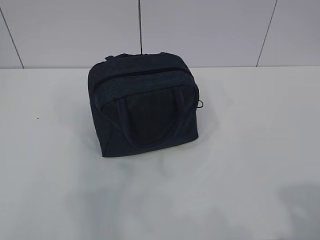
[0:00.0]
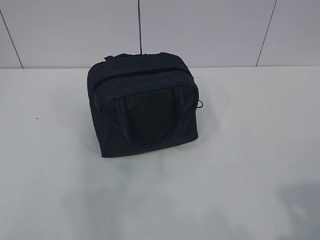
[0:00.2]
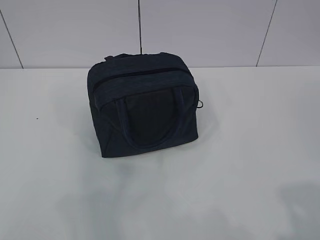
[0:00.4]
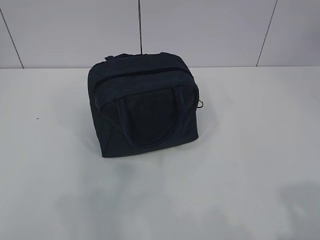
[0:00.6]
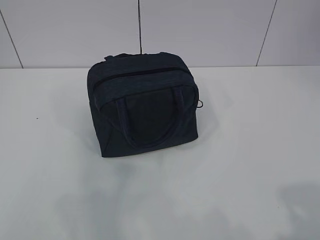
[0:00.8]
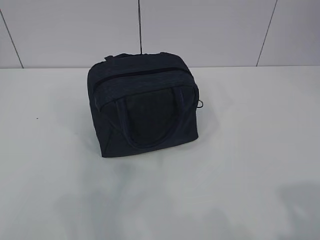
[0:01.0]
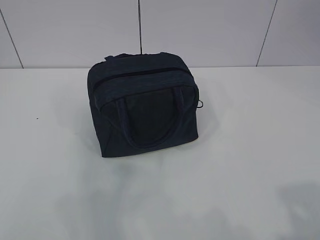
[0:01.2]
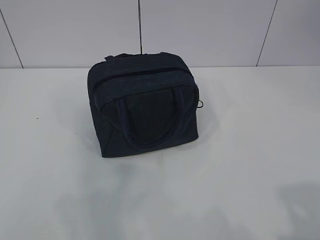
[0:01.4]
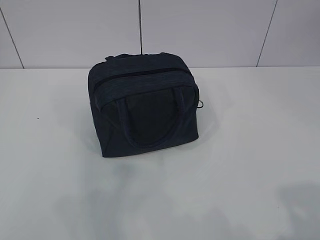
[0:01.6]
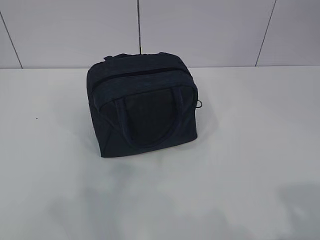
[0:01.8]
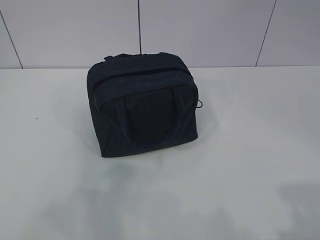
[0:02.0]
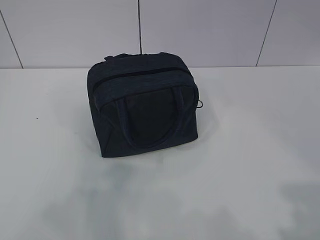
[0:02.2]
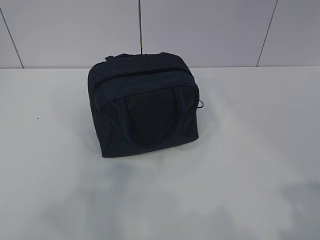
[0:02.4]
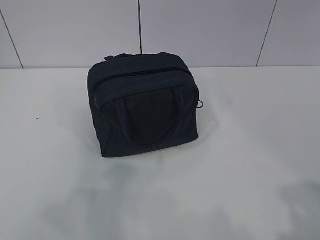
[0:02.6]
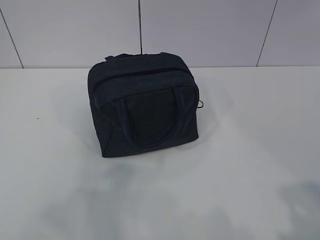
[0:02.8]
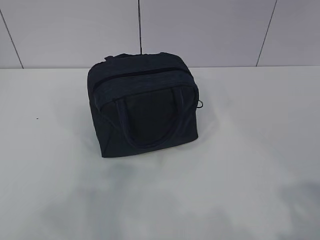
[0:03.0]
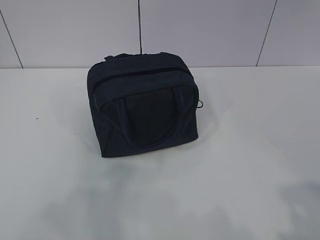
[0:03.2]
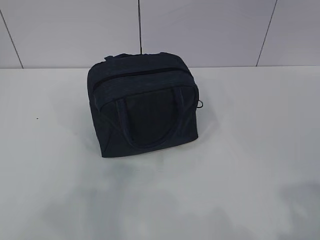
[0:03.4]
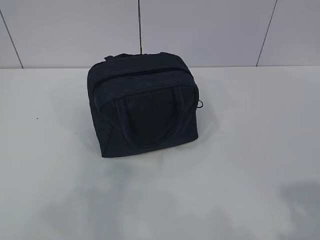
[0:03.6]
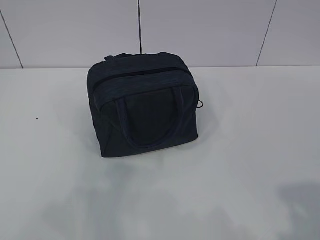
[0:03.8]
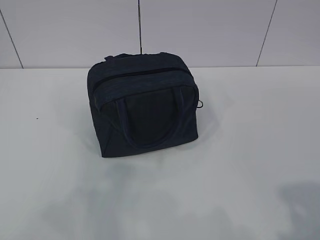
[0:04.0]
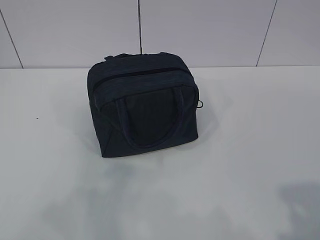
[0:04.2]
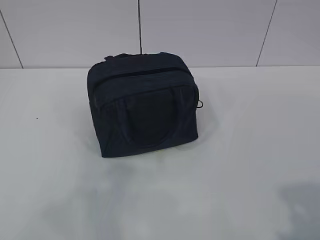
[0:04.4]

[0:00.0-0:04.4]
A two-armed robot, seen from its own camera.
0:03.0 to 0:04.4: Both grippers stay about where they are.

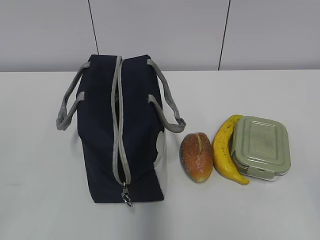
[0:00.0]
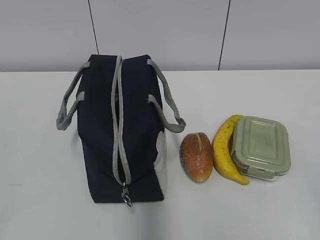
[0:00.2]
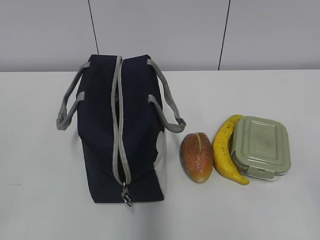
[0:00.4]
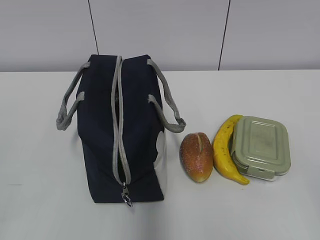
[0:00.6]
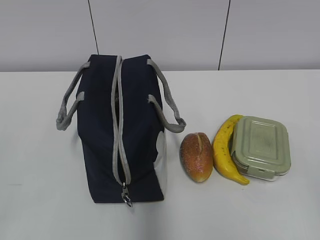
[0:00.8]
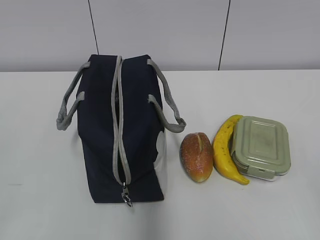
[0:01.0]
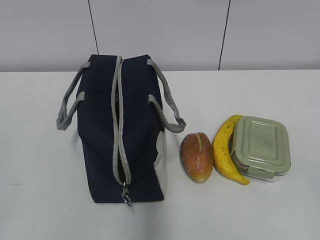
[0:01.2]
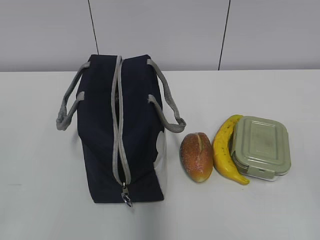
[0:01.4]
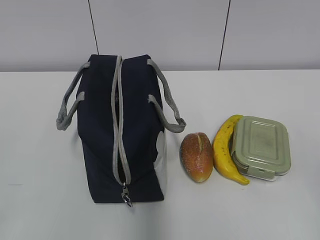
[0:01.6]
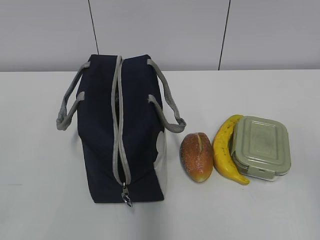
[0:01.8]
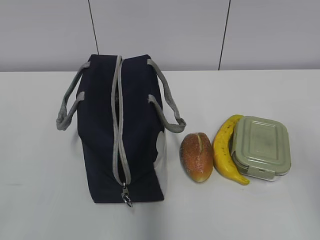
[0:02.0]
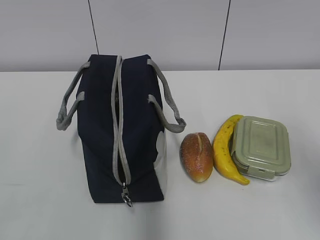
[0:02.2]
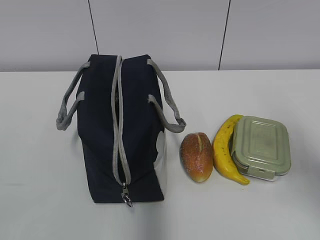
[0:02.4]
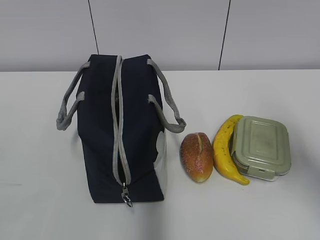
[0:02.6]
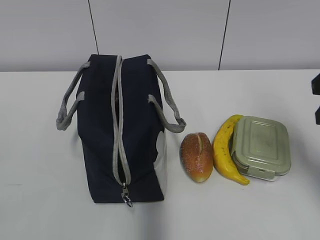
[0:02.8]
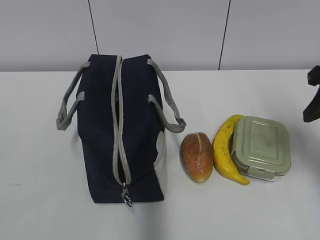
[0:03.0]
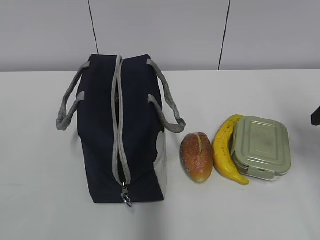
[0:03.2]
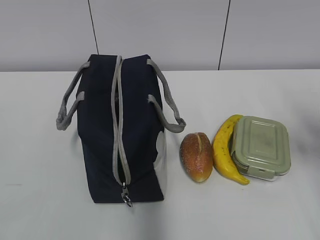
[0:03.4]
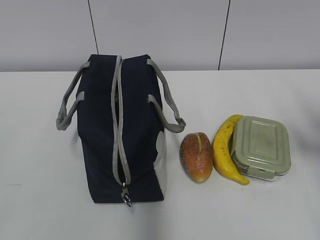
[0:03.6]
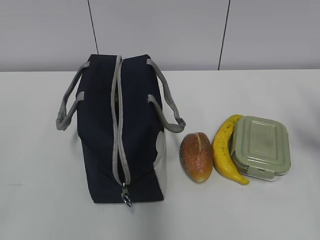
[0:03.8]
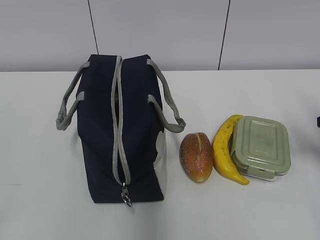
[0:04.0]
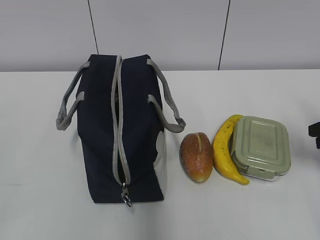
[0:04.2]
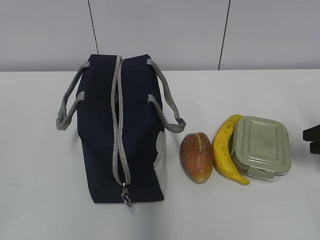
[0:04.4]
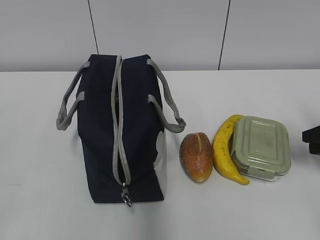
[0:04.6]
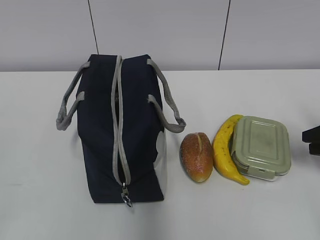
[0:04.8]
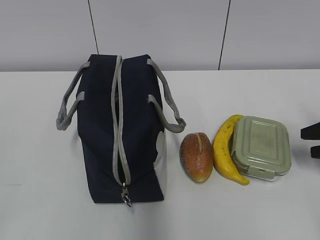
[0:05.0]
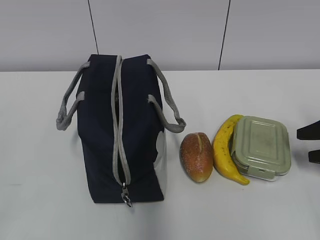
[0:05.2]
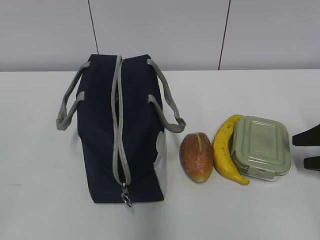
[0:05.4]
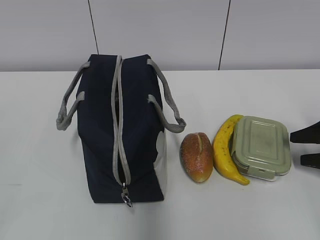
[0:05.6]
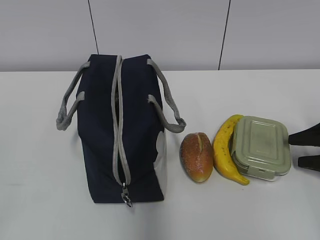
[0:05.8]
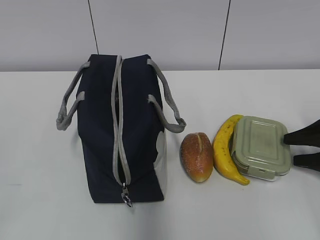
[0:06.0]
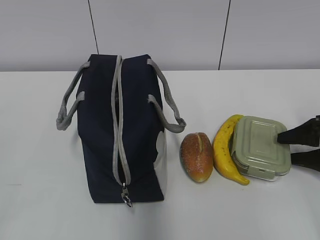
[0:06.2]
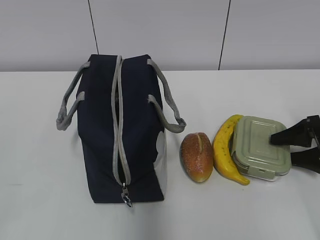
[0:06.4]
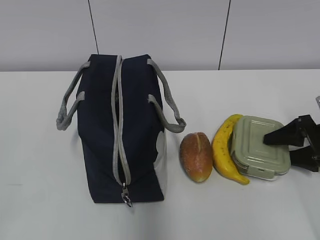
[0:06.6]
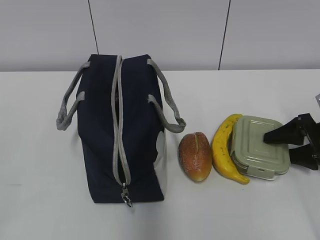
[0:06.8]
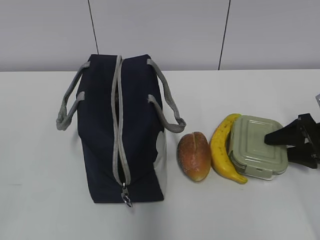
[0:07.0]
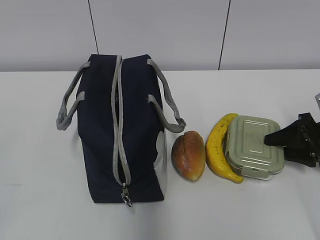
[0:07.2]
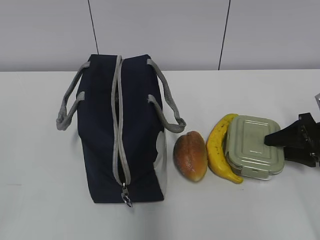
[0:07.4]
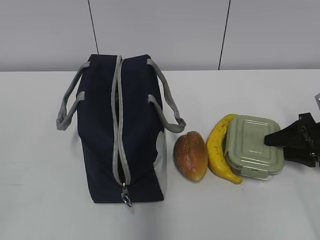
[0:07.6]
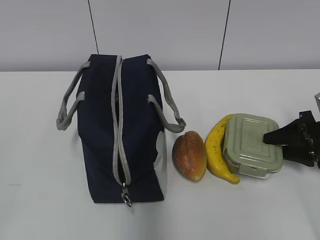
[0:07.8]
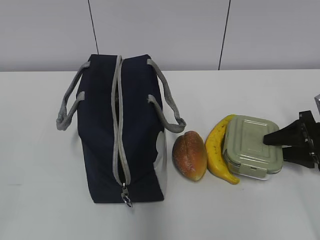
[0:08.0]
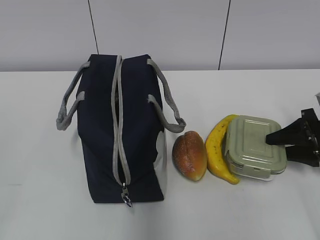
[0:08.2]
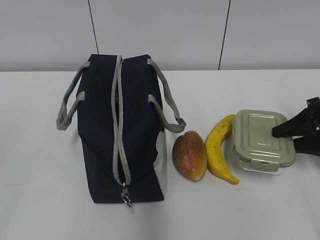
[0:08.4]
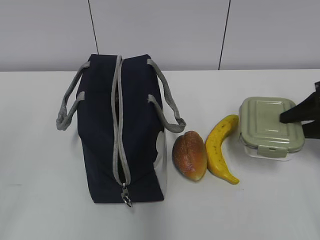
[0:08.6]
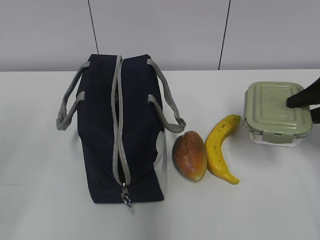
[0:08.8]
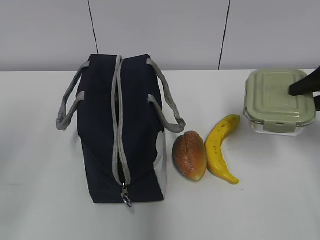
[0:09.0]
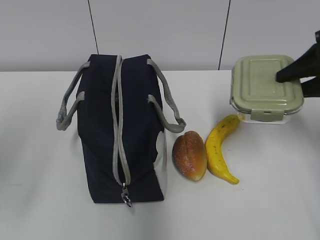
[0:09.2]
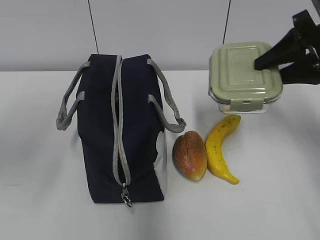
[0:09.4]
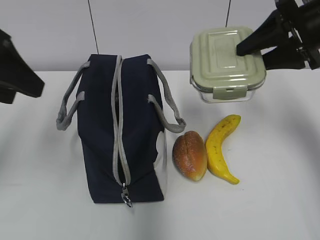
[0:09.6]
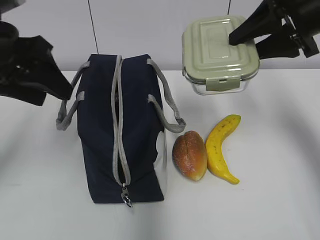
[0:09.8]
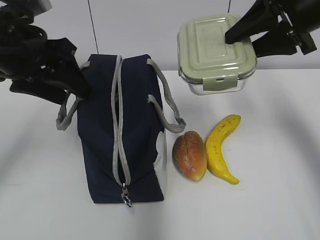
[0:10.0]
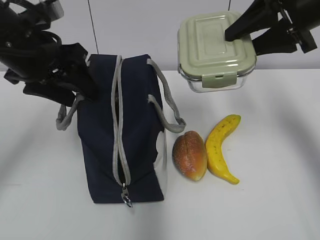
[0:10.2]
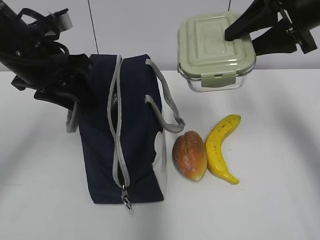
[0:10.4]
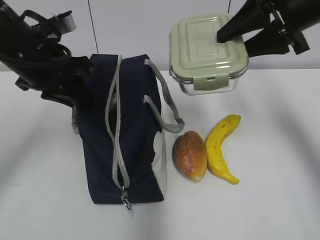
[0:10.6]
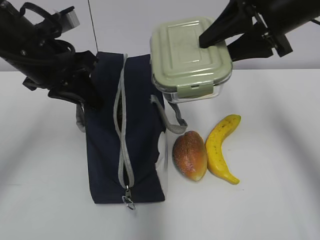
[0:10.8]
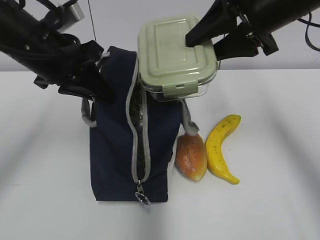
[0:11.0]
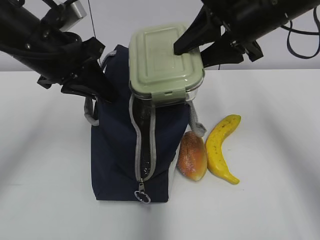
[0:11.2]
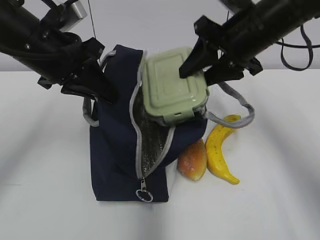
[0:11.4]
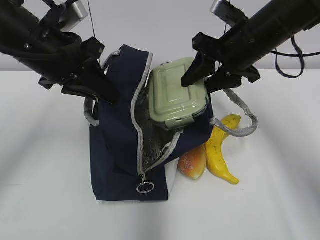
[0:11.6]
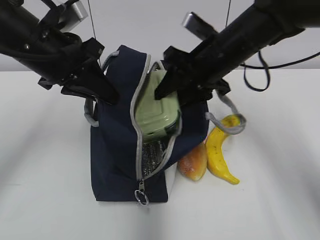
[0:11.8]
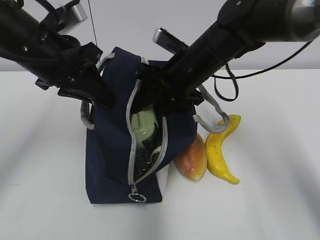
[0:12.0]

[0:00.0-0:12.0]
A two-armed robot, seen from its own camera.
0:01.6 to 0:03.0: The right gripper heads forward, covering approximately 25 cm.
0:03.0 to 0:04.4: The right gripper heads downward and to the right, covering approximately 15 cm.
0:04.4 to 0:06.0: The right gripper shifts some 5 cm downward, and opens its fingers.
0:06.0 to 0:07.6: There are only small adjustments of the grippers.
0:07.6 to 0:09.0: The right gripper moves upward, some 15 cm.
0:09.0 to 0:10.4: The left gripper goes roughly 25 cm forward and to the right. Meanwhile the right gripper goes about 15 cm to the left and upward.
0:10.4 to 0:12.0: The right gripper shifts about 20 cm to the left and downward. Meanwhile the left gripper closes its fingers.

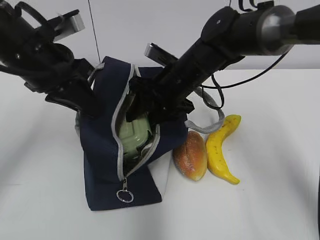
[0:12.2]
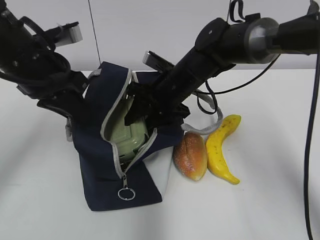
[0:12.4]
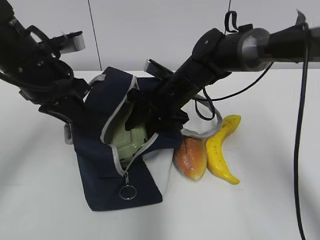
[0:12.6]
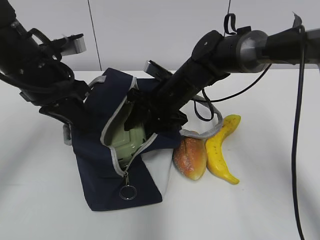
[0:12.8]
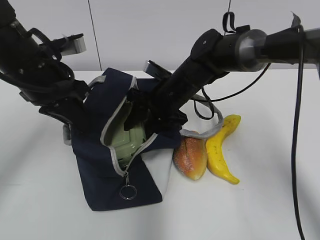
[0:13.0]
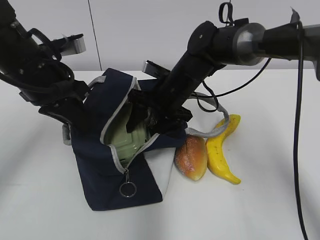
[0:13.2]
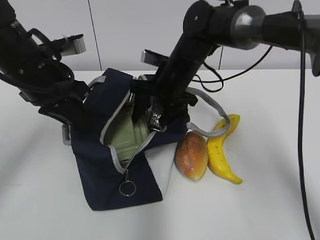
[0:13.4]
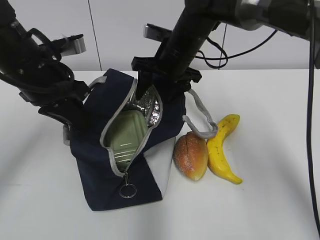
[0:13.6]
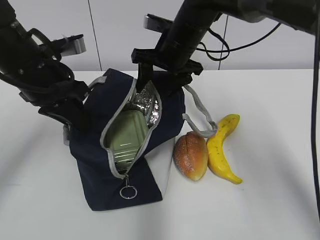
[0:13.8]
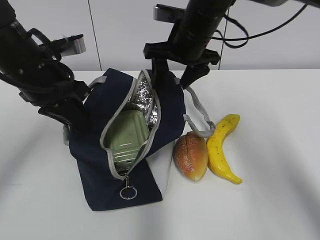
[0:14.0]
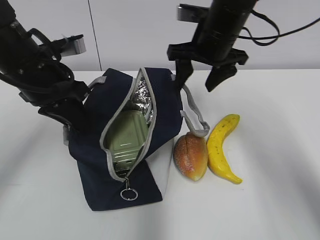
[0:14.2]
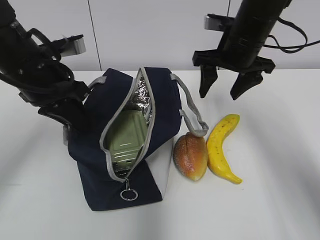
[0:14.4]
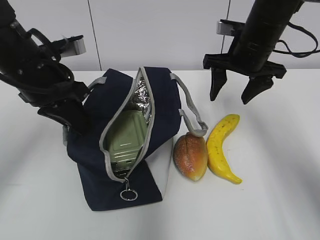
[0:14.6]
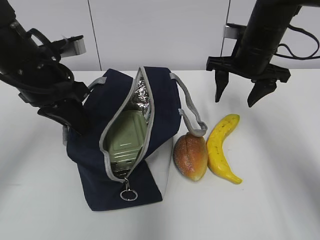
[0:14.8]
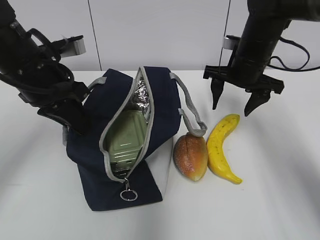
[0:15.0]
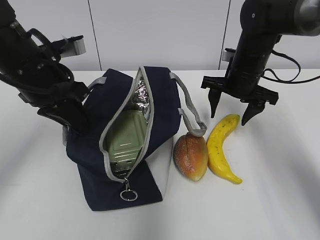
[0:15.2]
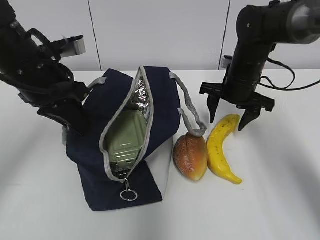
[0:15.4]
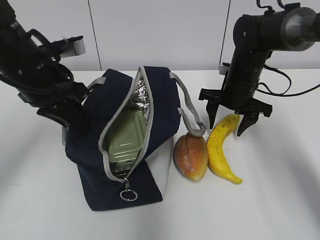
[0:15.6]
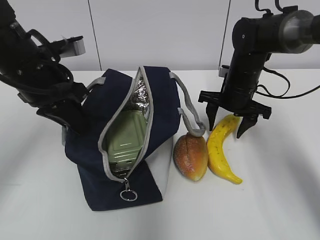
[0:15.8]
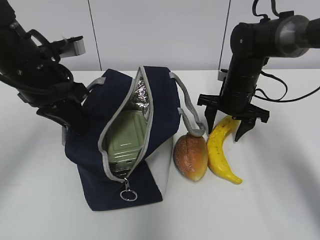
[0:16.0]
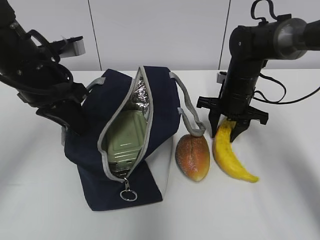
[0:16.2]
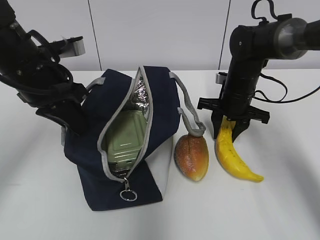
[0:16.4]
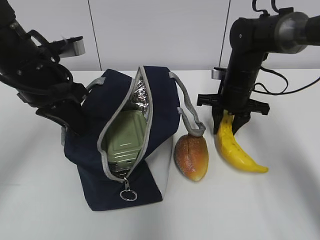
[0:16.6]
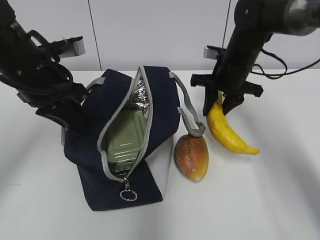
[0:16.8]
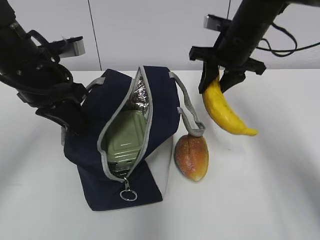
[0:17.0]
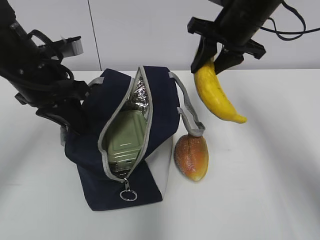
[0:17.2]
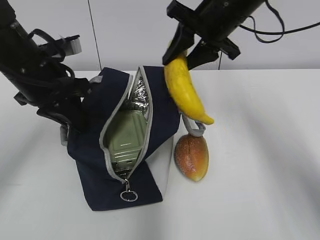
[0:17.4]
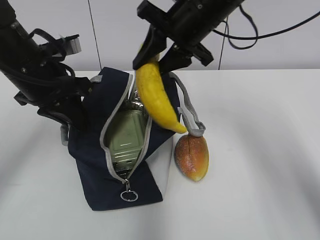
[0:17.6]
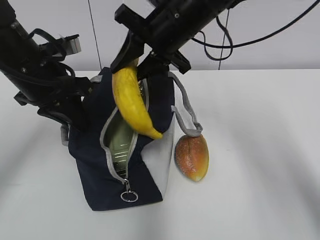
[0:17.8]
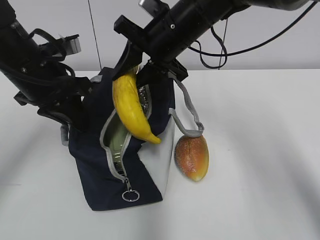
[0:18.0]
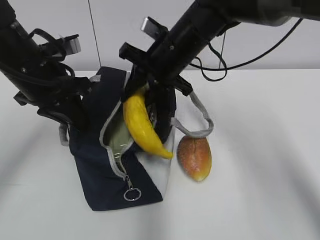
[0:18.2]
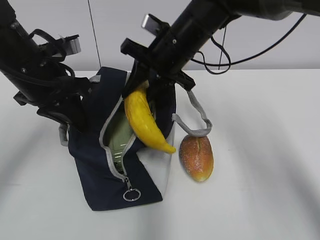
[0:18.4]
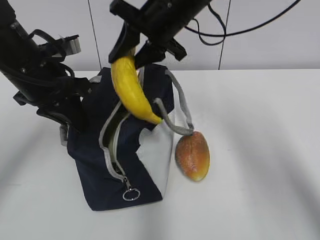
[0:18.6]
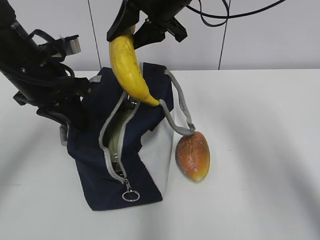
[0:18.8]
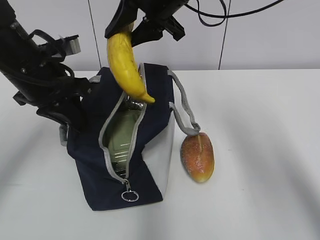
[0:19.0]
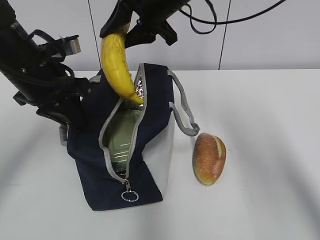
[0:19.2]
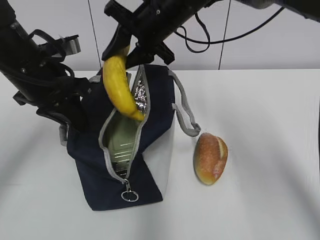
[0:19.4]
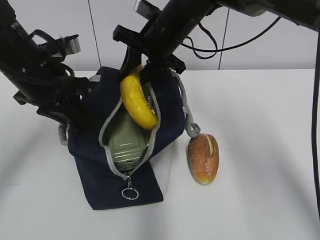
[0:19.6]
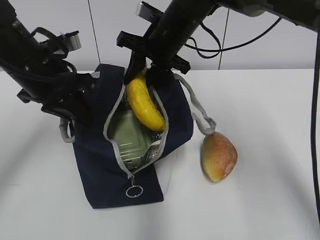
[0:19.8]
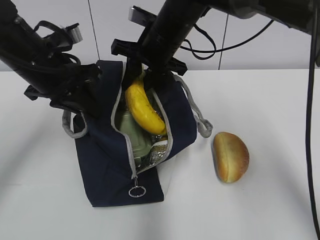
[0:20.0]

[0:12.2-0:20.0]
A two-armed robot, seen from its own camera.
0:12.2 to 0:13.8: The right gripper ends up roughly 5 cm from where it was.
0:13.8 to 0:15.4: The right gripper shifts approximately 15 cm to the right and downward.
0:15.4 to 0:16.8: The right gripper closes.
0:16.8 to 0:18.4: The right gripper shifts some 15 cm to the left and upward.
0:18.4 to 0:20.0: The right gripper travels upward and back again, some 10 cm each way.
